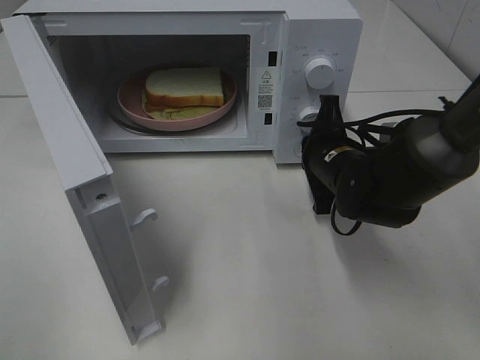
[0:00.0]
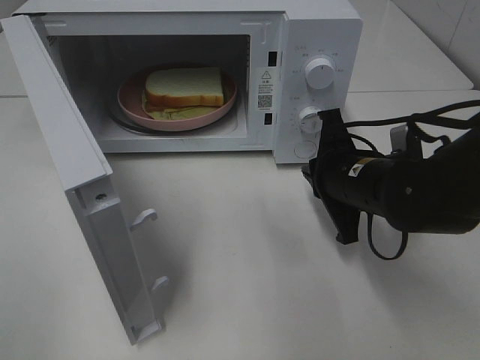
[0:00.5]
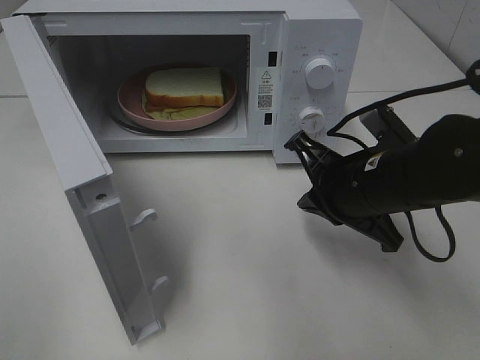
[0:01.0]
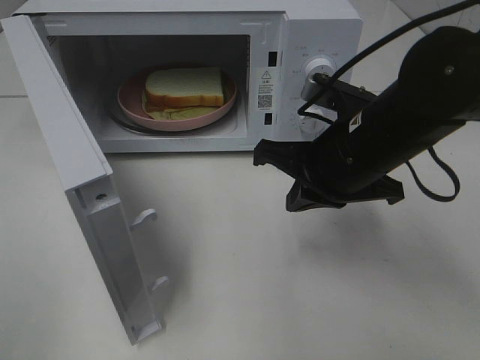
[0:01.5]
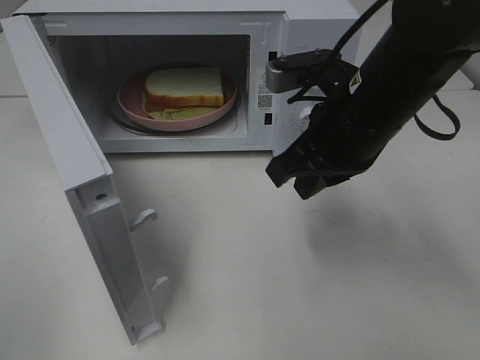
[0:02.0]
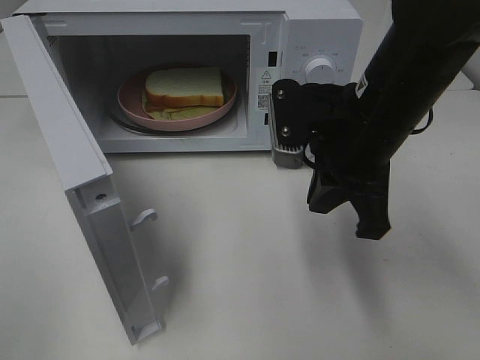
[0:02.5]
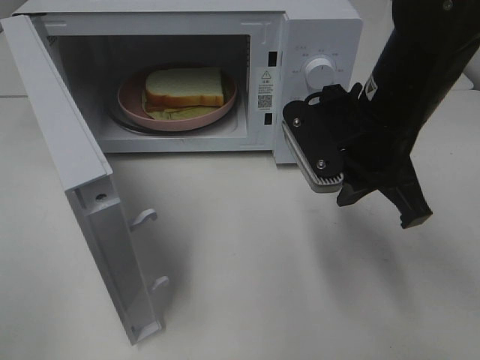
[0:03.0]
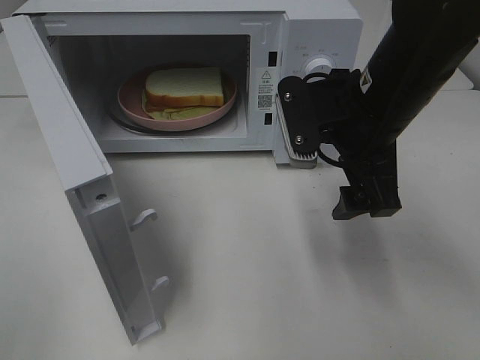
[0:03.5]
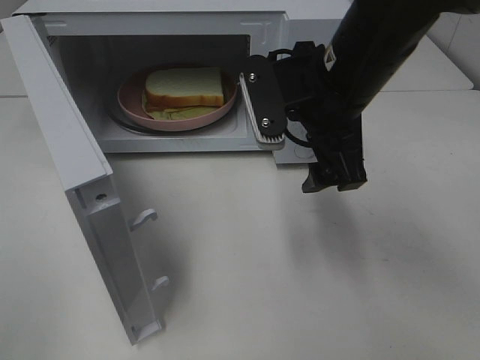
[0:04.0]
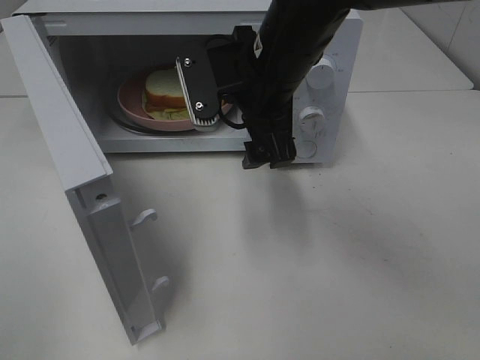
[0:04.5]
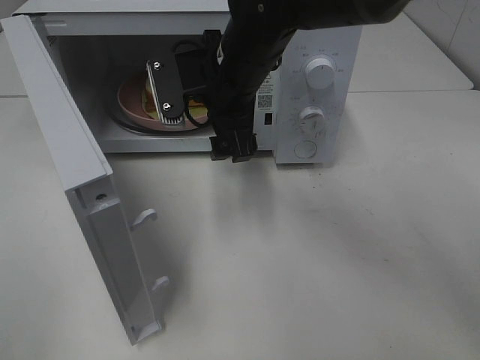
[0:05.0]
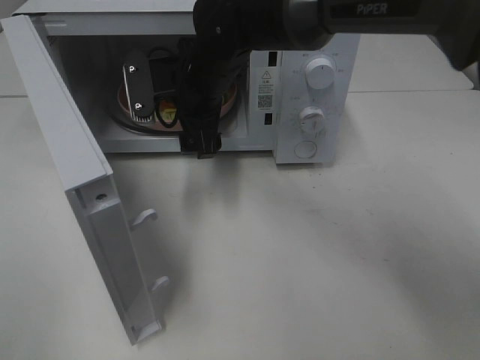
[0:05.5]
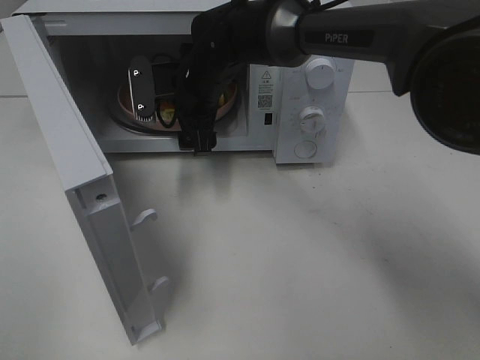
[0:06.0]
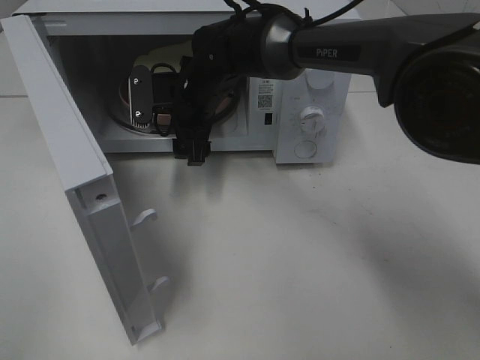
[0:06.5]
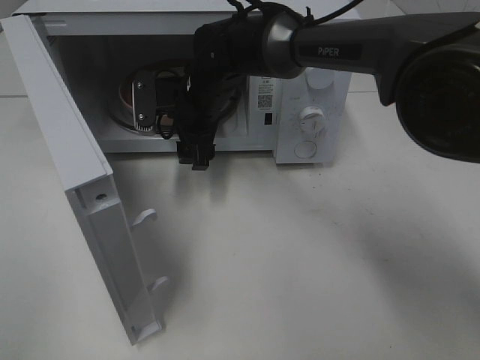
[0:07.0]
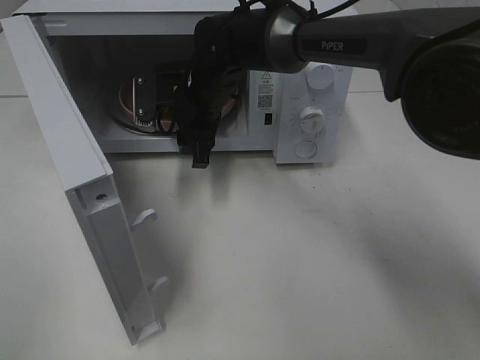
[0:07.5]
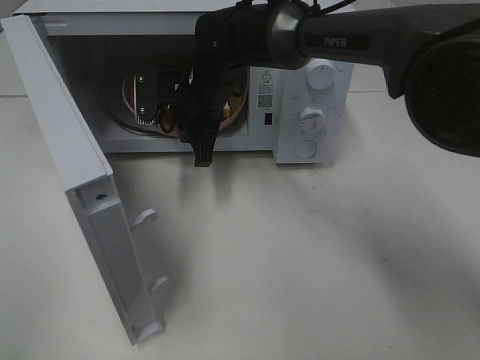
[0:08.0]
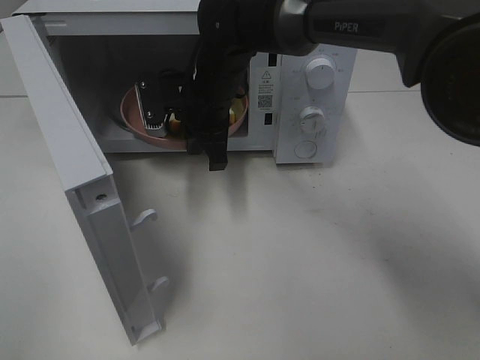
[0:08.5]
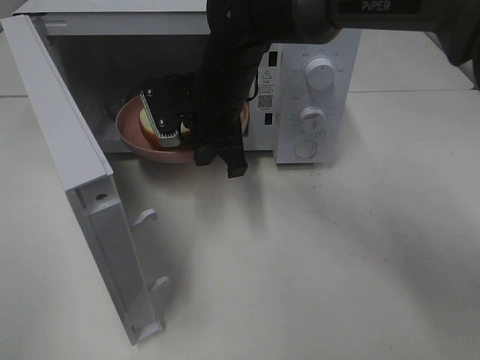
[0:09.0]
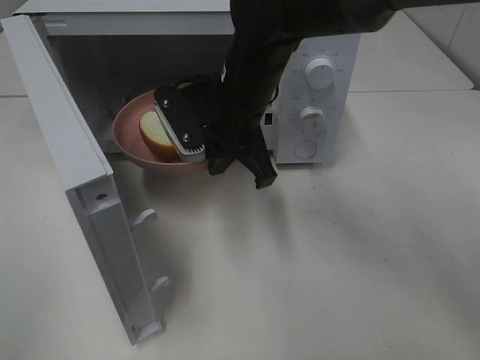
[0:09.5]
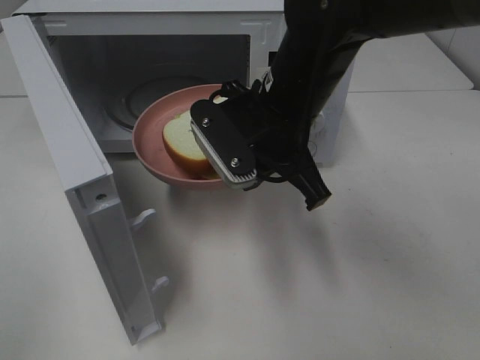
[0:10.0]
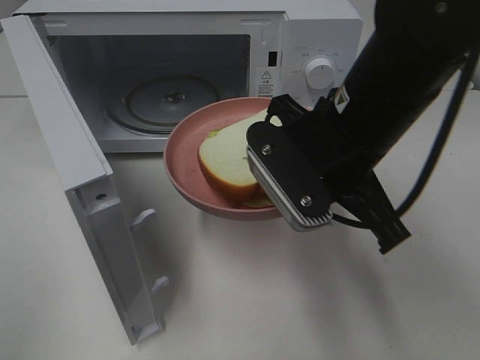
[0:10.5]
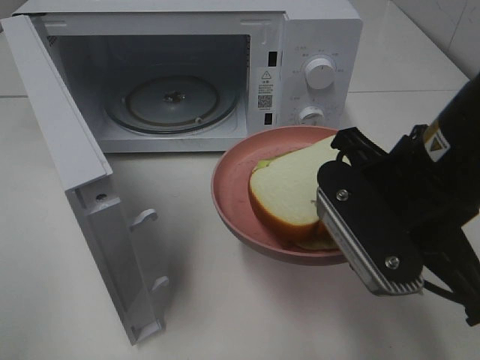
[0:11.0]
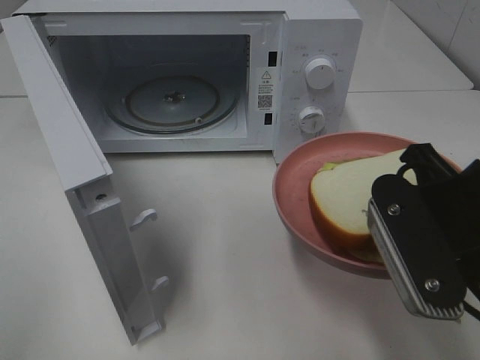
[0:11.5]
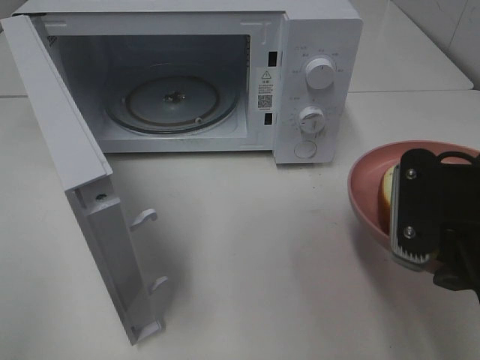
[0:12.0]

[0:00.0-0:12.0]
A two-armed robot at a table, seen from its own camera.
Task of the whole recording: Heat Sandwich.
Step, 0:00.5 to 0:08.0: Right hand: grab the plate with the sandwich.
0:00.0 to 0:02.0: The right gripper travels upward and backward by roughly 15 cm.
0:02.0 to 0:04.0: The right gripper opens its fingers.
0:04.0 to 0:06.0: The right gripper goes some 20 cm forward, to the left and downward.
0:06.0 to 0:08.0: The right gripper closes its fingers.
0:08.0 to 0:10.0: The right gripper travels backward, to the right and upward by some 15 cm.
0:10.0 to 0:12.0: The right gripper moves backward and to the right, approximately 20 cm.

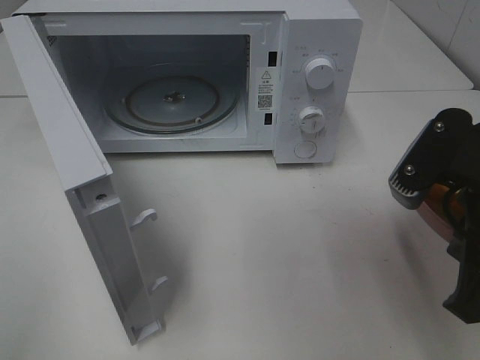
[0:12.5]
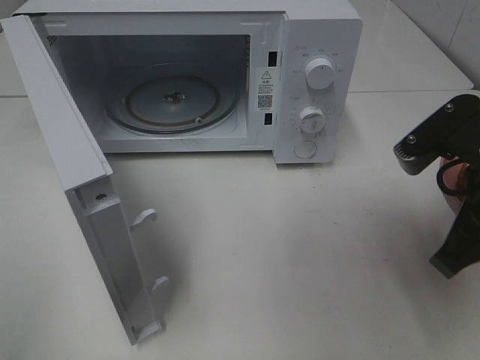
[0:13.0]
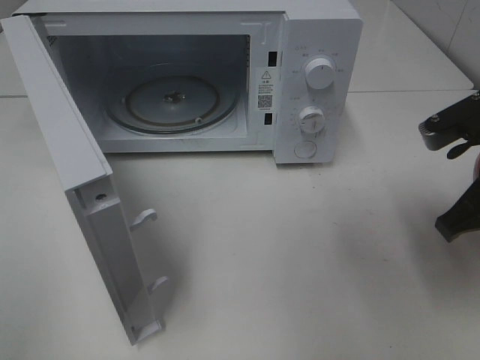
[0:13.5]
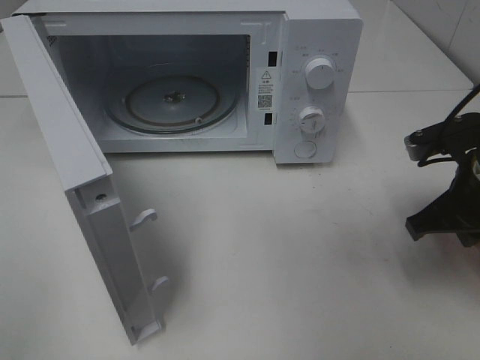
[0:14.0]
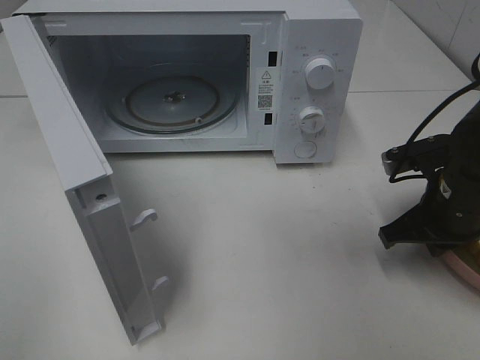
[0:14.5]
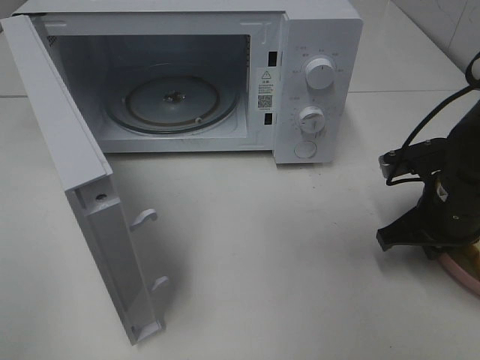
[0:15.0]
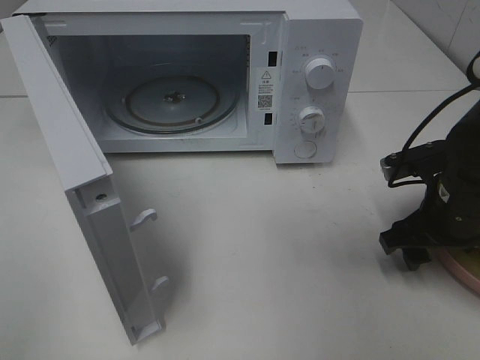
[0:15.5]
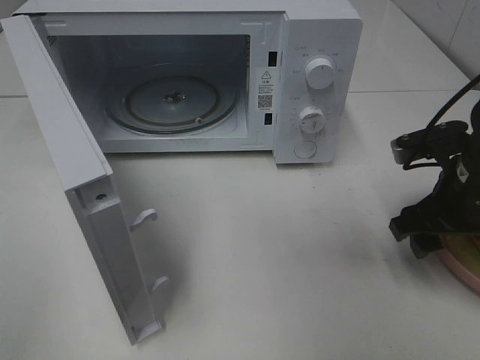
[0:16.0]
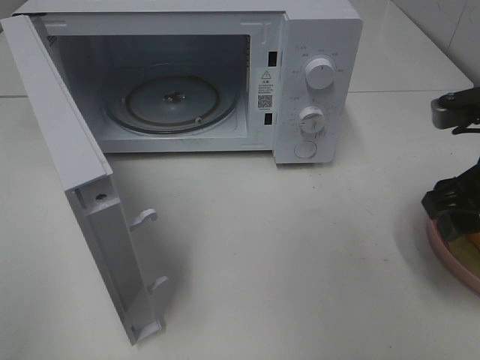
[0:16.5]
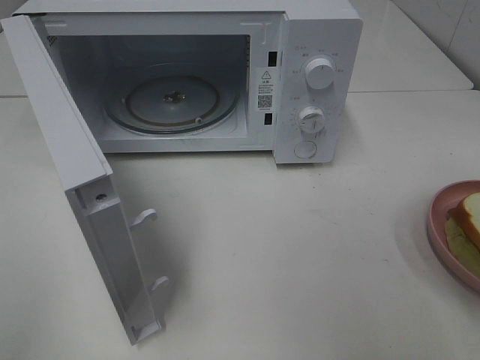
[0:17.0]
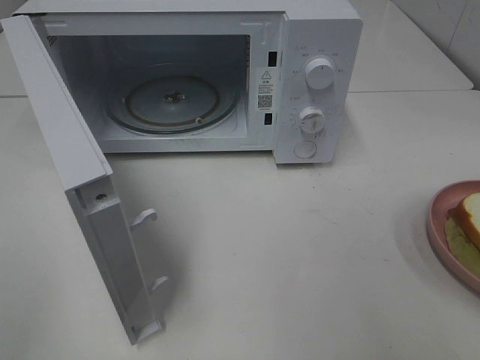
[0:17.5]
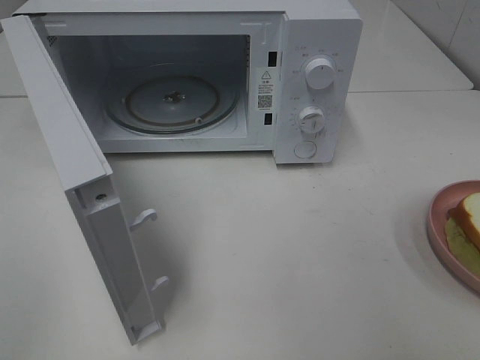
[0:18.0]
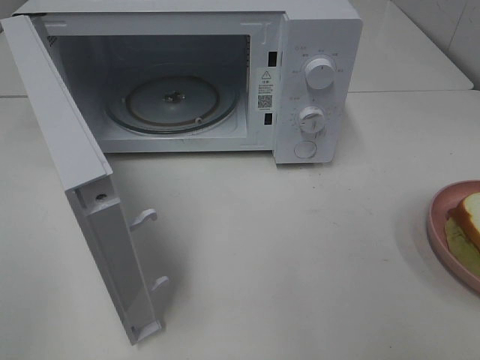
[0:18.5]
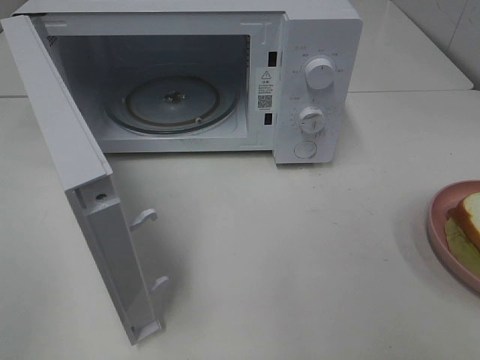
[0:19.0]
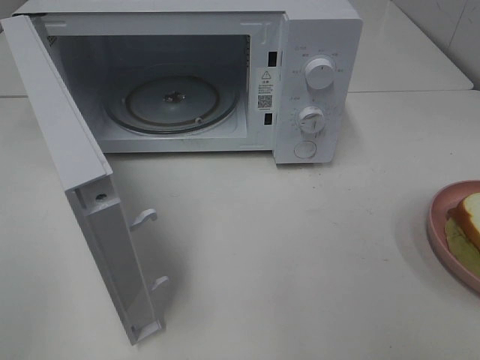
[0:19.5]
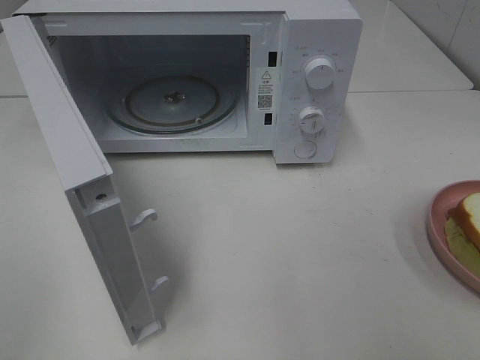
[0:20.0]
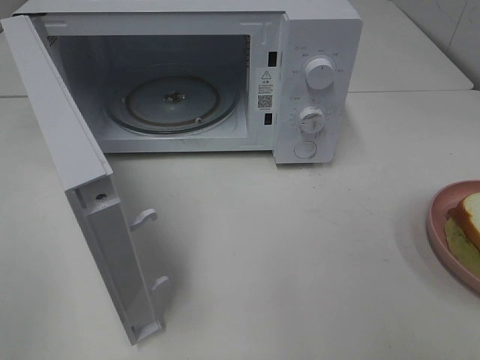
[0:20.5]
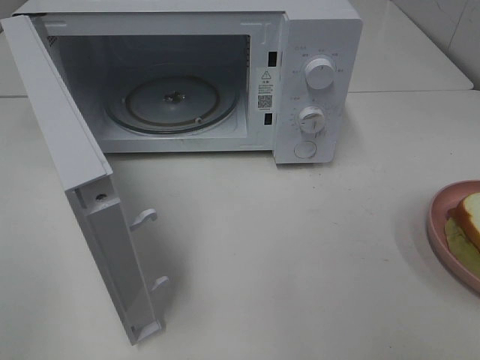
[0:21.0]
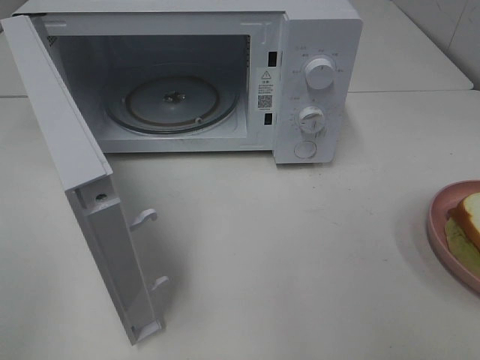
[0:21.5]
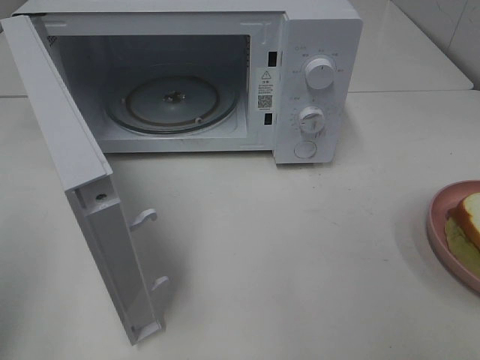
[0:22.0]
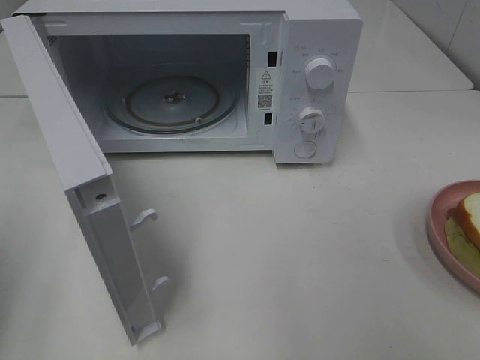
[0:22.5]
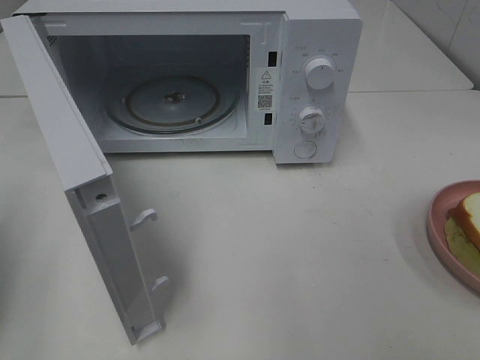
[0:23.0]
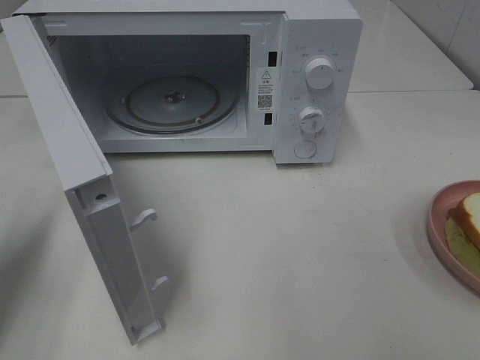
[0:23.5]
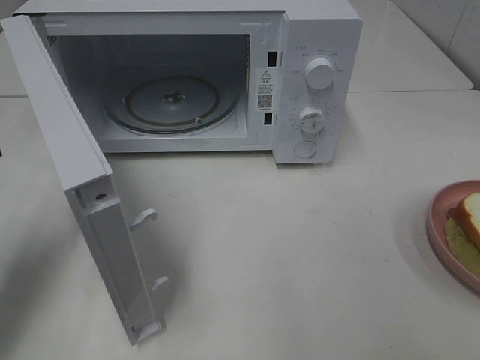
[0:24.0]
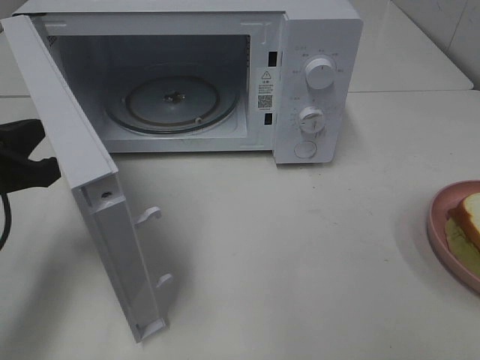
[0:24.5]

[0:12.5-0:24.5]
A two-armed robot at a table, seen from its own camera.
Task of the whole recording: Heat Sandwich.
Step, 0:12.5 to 0:16.5: Right hand: place the plate on the table.
0:12.5 to 0:14.5: The right gripper moves downward and forward, about 15 cm.
0:14.5 to 0:16.5: The right gripper travels upward by about 10 cm, and opens its fingers.
0:16.5 to 0:18.5: The right gripper moves backward, roughly 20 cm.
0:22.5 to 0:24.5: The left gripper moves forward, to the right and downward, roughly 15 cm.

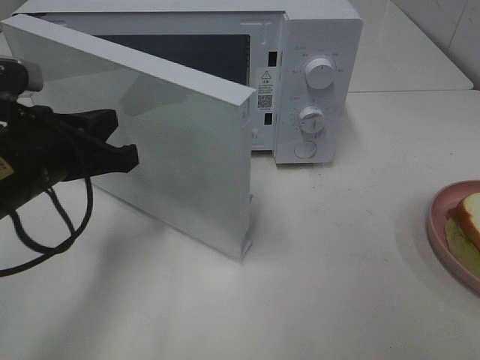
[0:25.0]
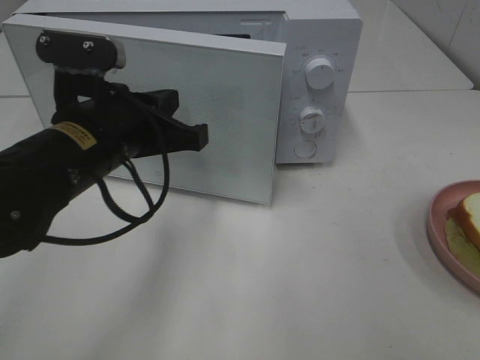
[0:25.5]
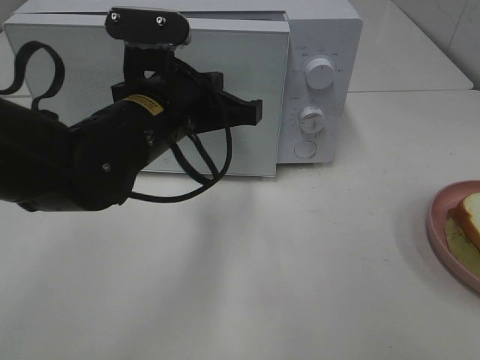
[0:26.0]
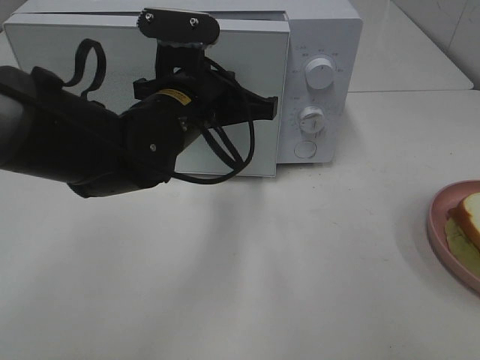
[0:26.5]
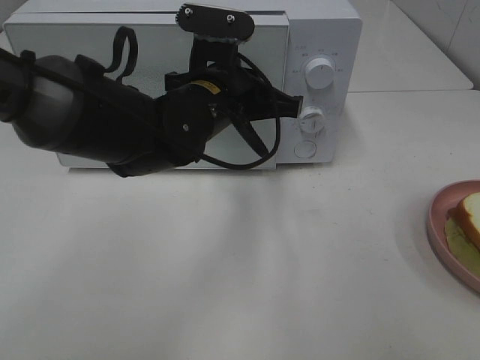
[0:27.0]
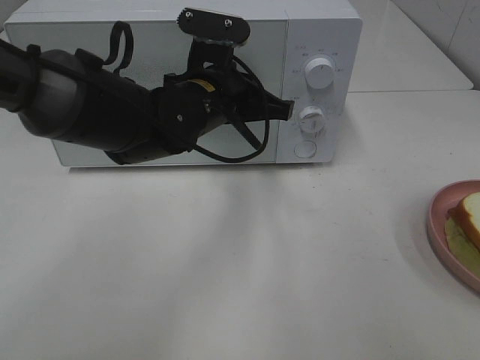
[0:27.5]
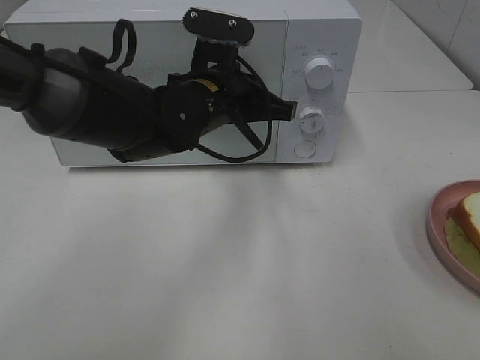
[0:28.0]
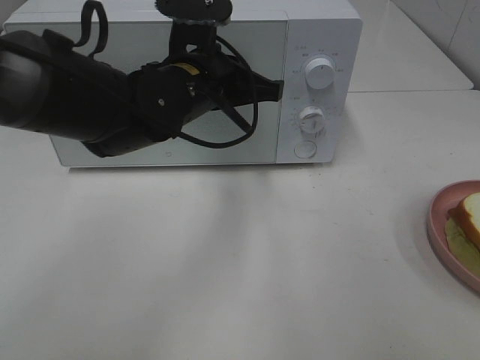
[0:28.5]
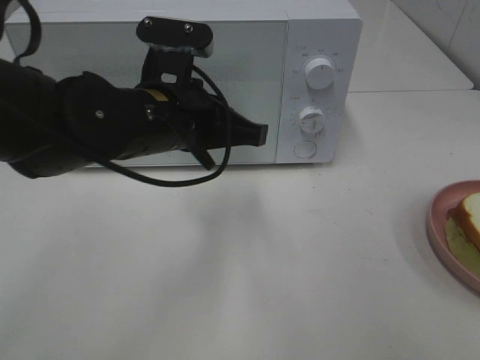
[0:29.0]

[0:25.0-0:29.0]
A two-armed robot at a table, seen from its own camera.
Task of the whole recording: Heat Sandwich.
0:25.0 to 0:27.0: The left gripper moves to the right and forward, about 20 cm.
0:27.0 to 0:29.0: The left gripper goes roughly 5 cm backward.
